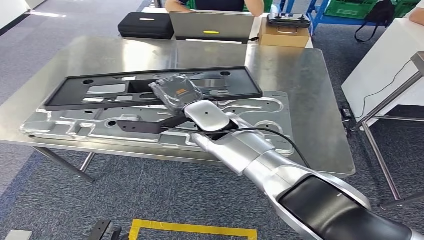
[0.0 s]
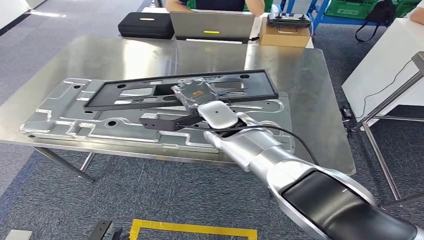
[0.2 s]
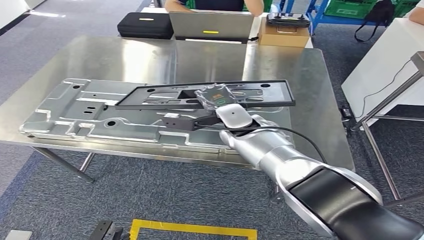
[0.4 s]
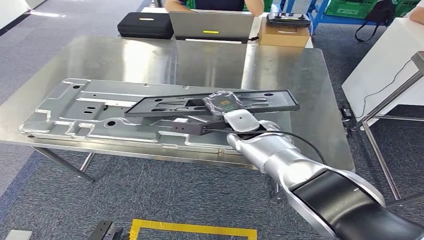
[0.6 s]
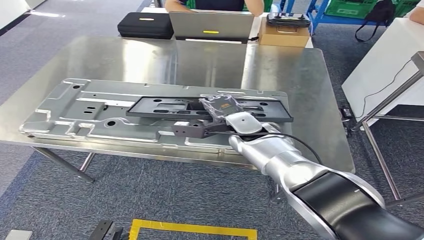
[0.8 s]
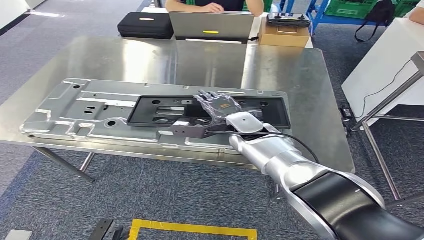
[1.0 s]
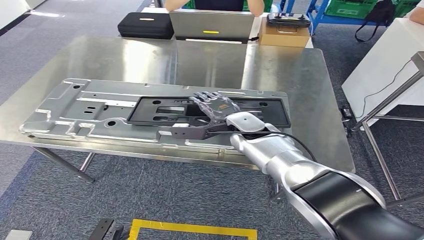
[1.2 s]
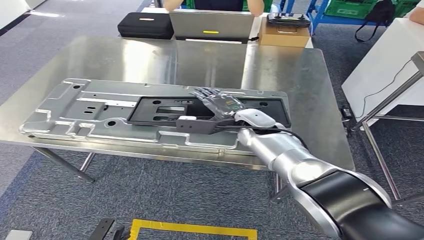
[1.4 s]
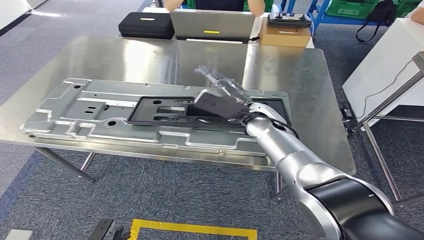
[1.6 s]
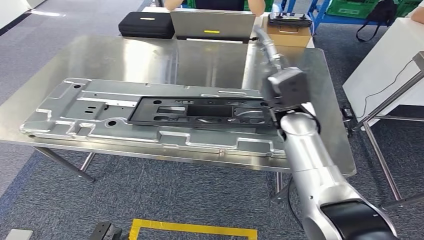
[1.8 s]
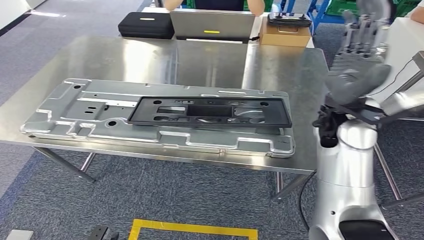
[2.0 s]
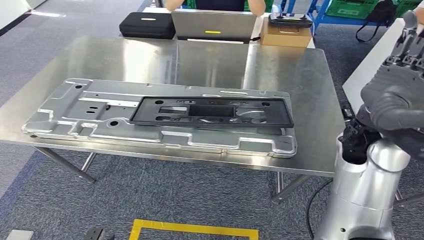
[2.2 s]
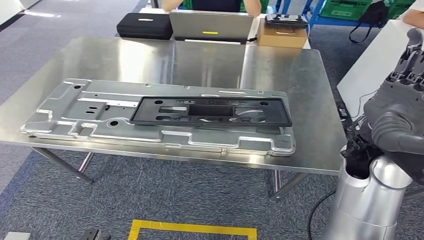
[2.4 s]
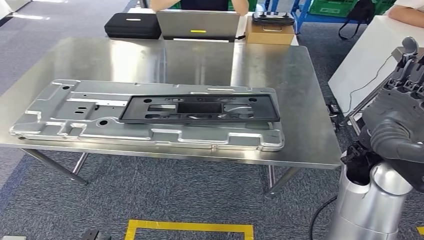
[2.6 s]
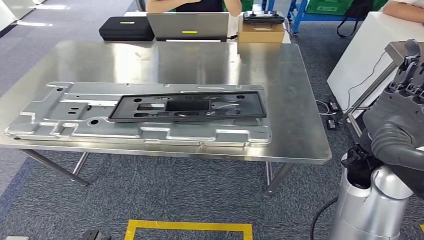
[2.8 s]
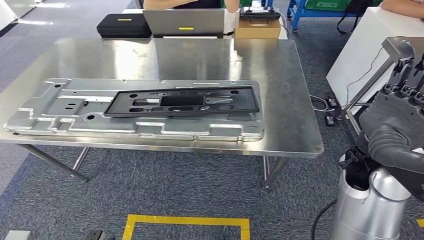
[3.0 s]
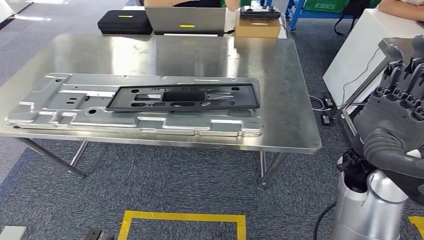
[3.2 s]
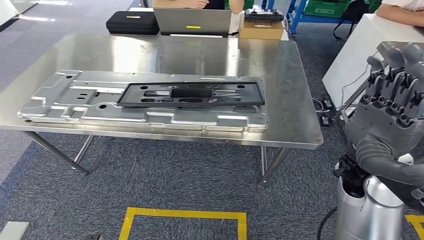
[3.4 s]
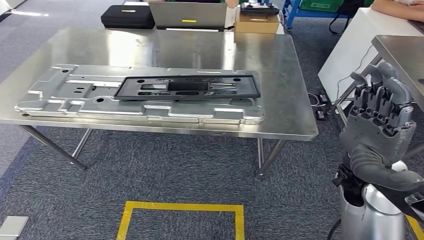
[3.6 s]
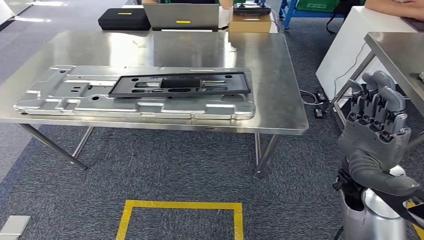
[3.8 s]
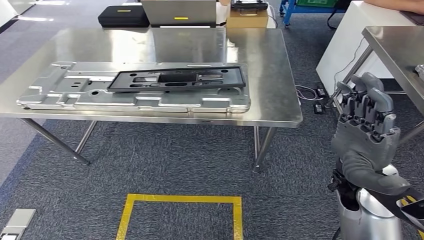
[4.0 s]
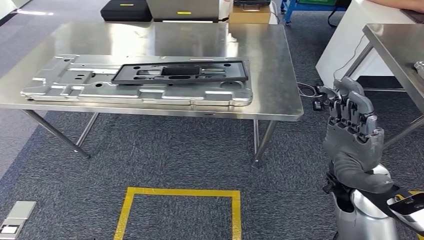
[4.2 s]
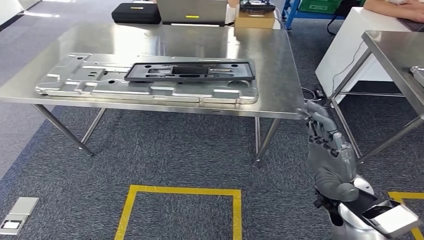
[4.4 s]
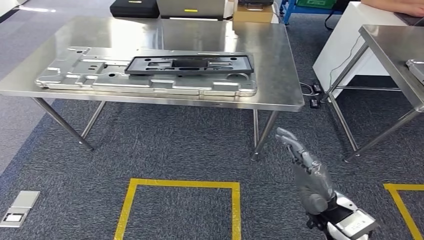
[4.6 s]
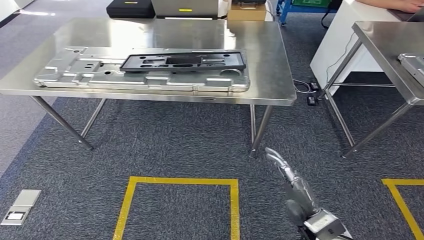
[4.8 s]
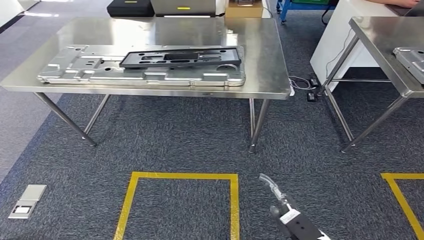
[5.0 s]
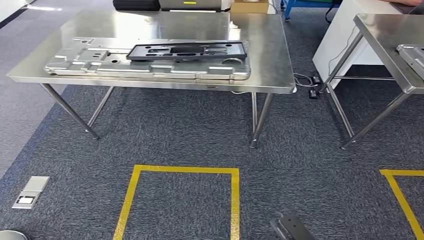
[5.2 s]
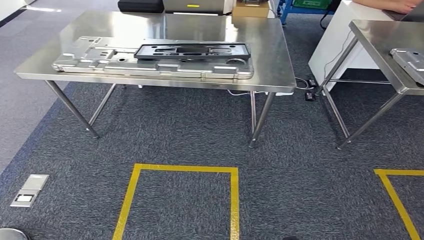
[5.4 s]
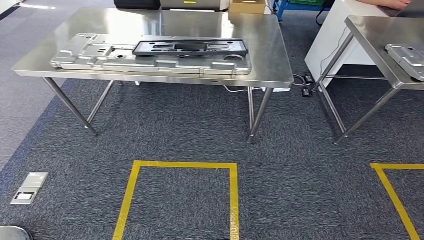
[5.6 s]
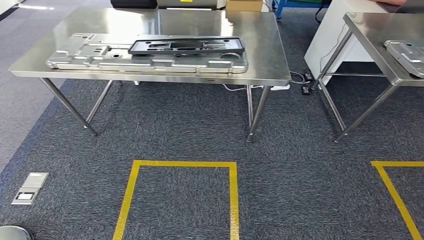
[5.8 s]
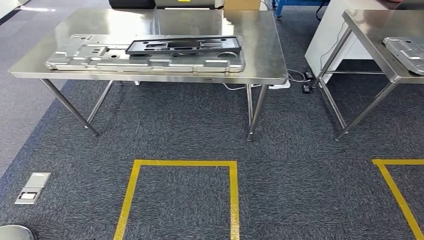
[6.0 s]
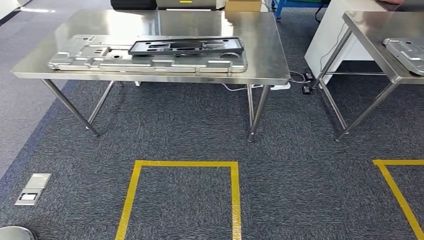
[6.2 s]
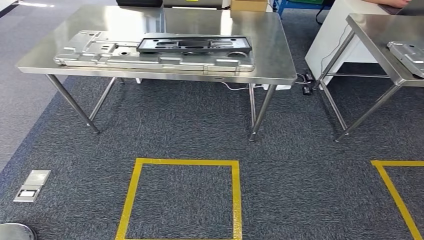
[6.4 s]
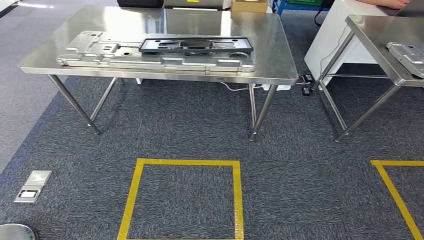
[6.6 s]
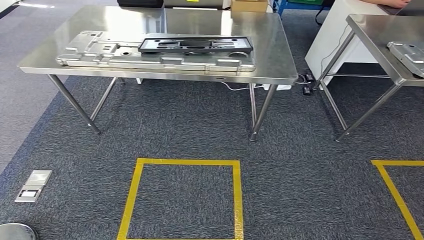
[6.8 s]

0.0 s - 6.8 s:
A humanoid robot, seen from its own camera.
Step, 0.0 s - 1.8 s: Insert the small component into the corresponding slot on the workbench.
Step, 2.0 s - 6.8 s: Move to the initial position of the workbench.
0.0 s - 1.4 s: The right hand is displaced to the right and downward by roughly 15 cm.

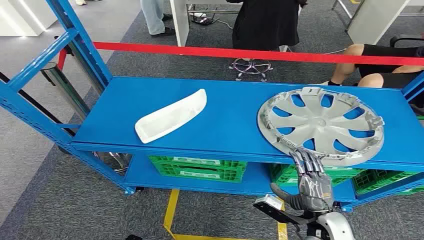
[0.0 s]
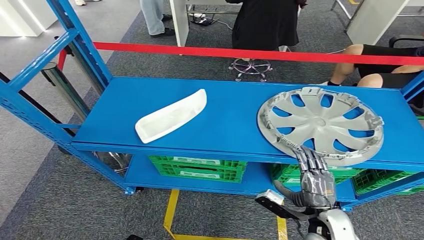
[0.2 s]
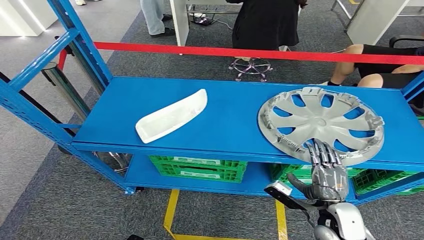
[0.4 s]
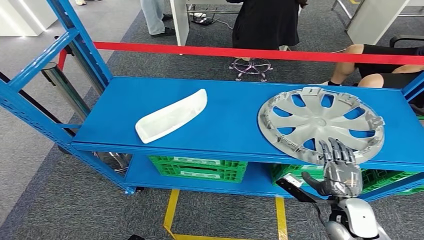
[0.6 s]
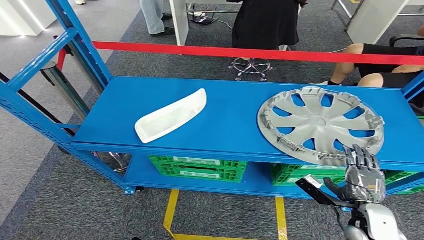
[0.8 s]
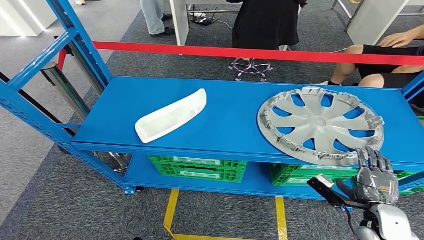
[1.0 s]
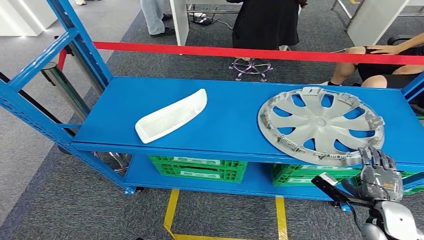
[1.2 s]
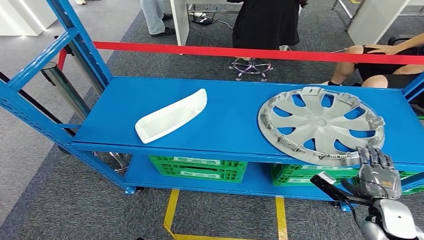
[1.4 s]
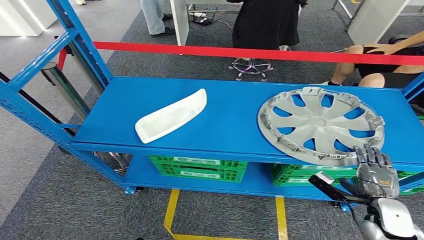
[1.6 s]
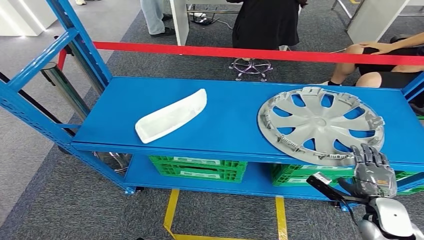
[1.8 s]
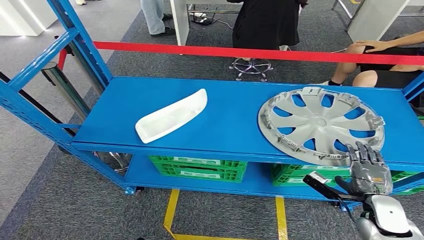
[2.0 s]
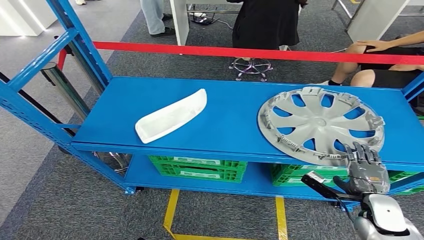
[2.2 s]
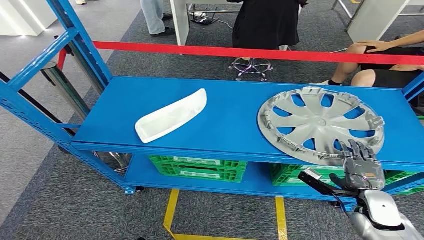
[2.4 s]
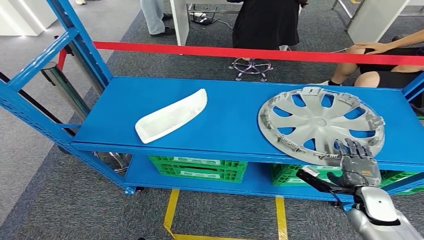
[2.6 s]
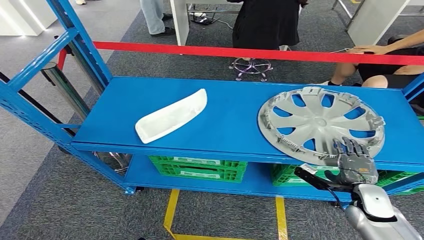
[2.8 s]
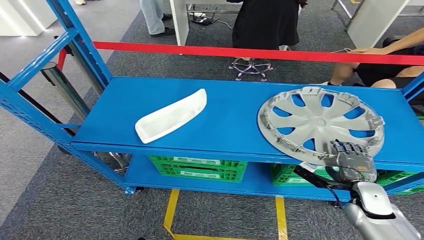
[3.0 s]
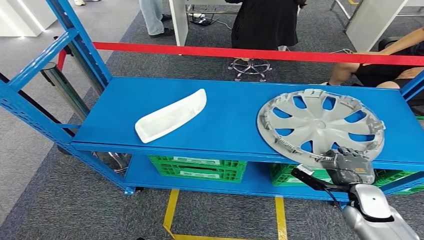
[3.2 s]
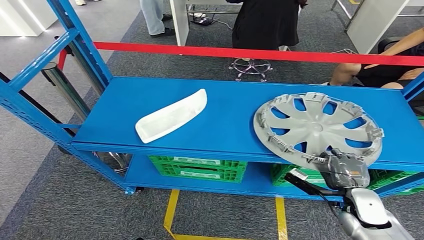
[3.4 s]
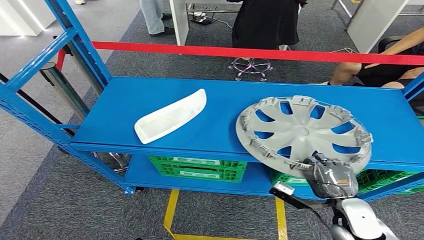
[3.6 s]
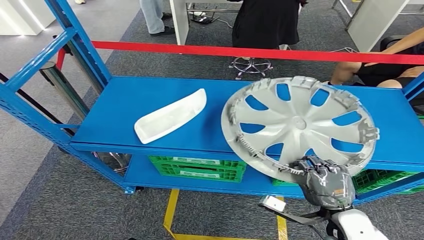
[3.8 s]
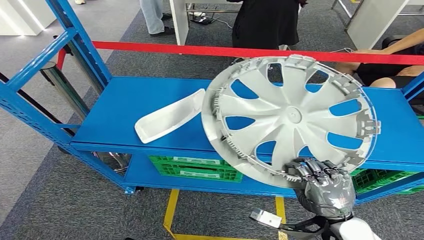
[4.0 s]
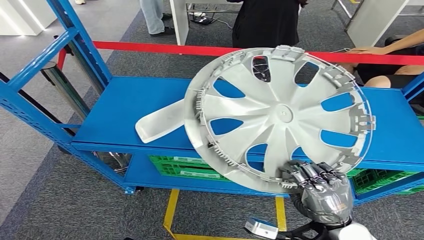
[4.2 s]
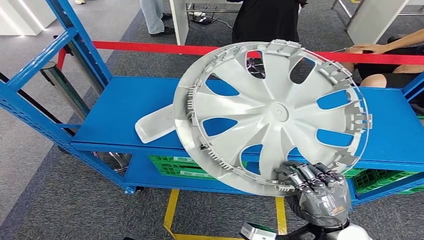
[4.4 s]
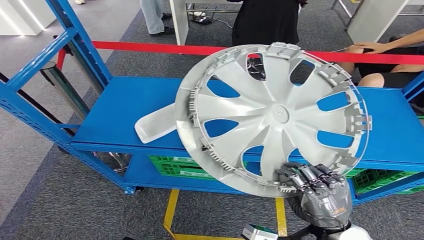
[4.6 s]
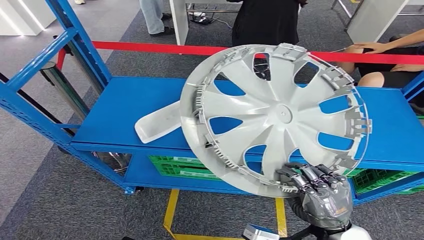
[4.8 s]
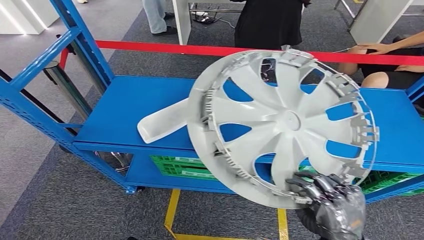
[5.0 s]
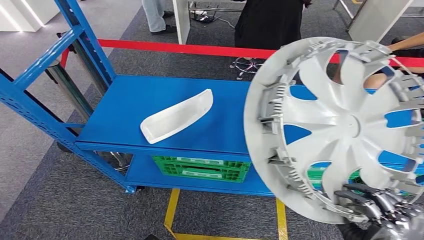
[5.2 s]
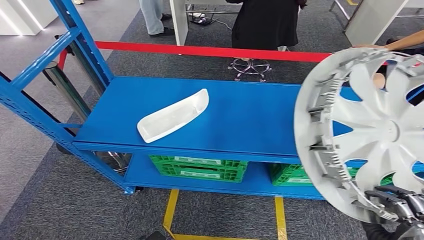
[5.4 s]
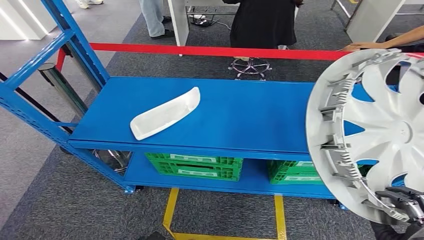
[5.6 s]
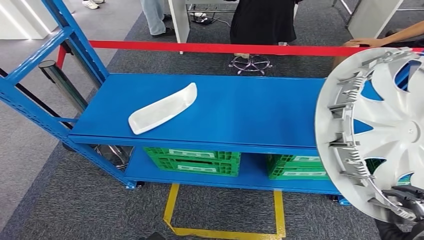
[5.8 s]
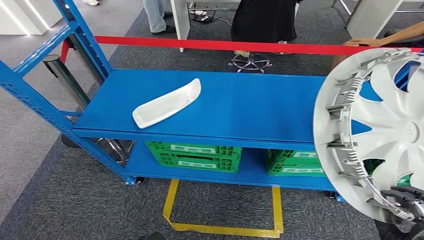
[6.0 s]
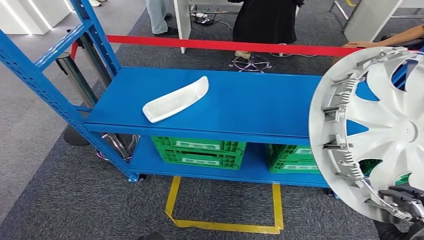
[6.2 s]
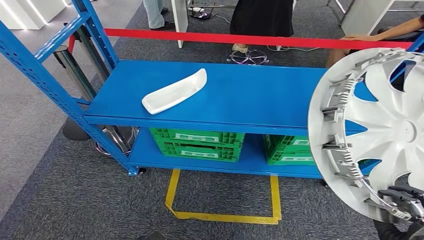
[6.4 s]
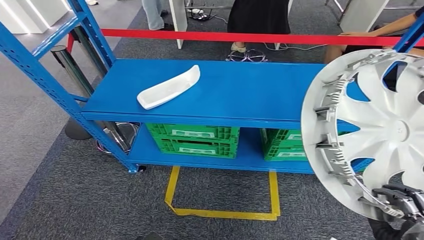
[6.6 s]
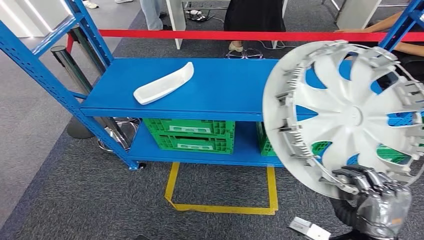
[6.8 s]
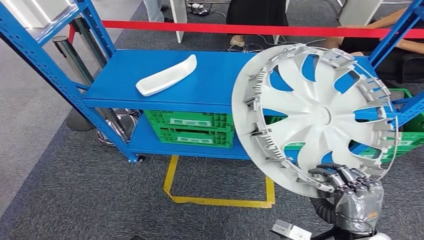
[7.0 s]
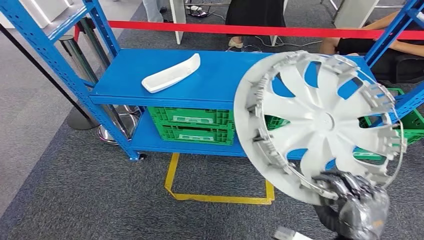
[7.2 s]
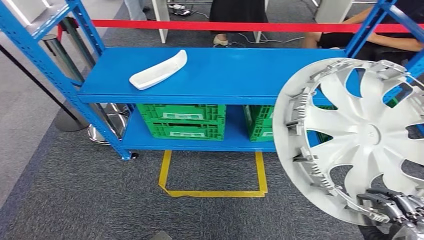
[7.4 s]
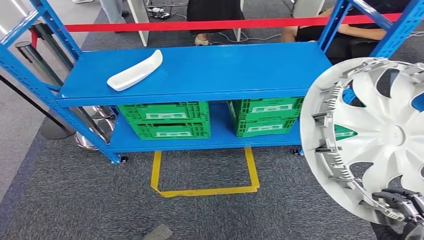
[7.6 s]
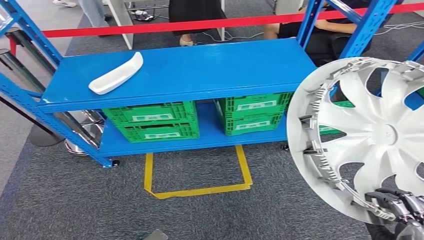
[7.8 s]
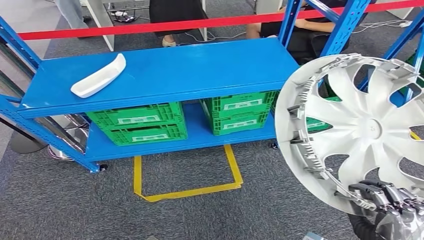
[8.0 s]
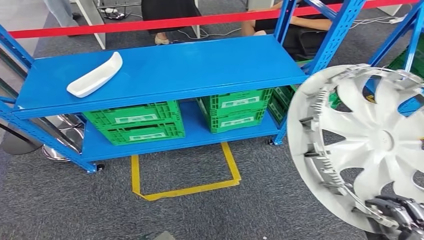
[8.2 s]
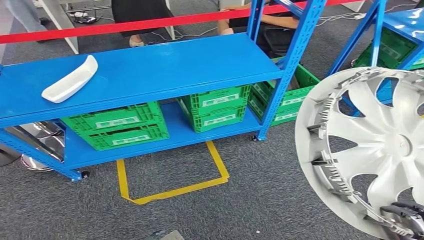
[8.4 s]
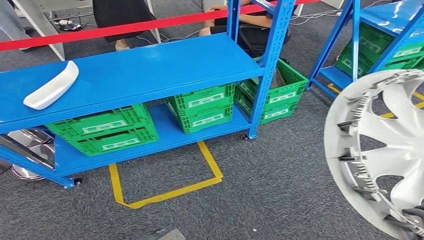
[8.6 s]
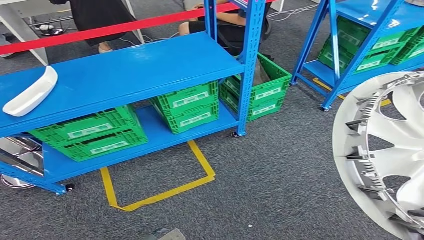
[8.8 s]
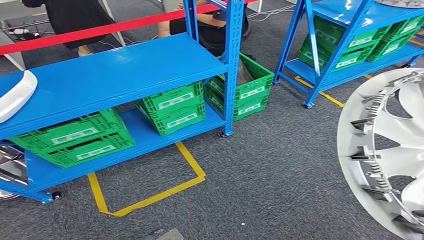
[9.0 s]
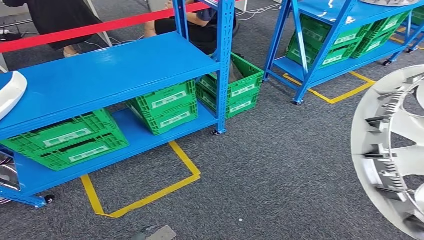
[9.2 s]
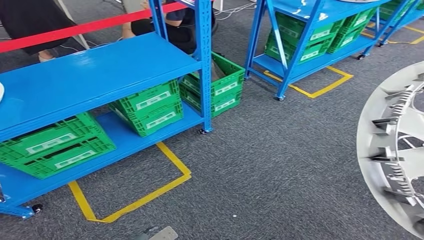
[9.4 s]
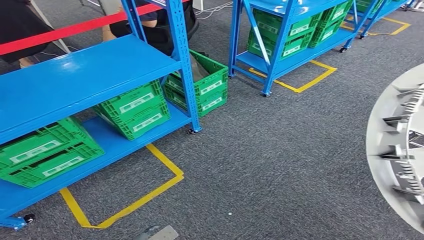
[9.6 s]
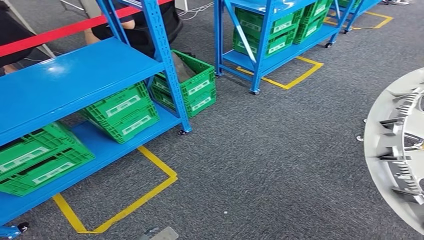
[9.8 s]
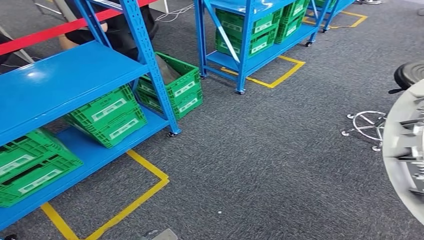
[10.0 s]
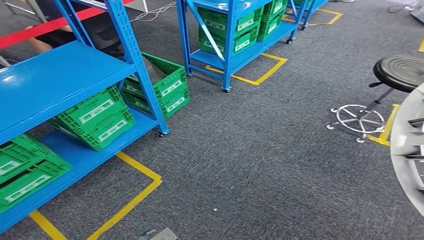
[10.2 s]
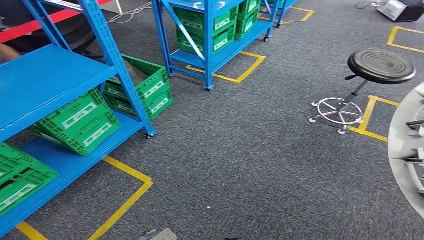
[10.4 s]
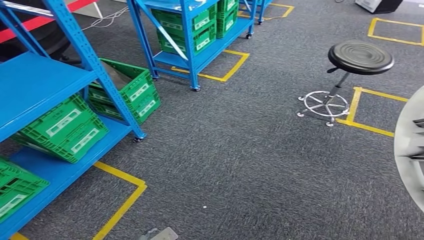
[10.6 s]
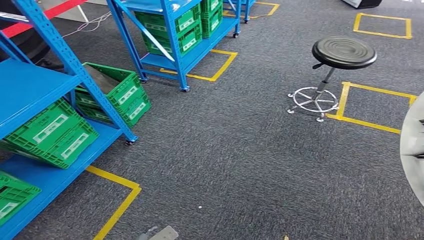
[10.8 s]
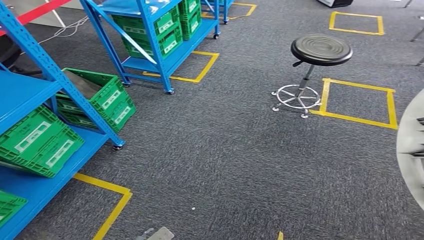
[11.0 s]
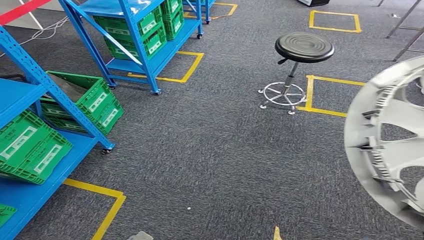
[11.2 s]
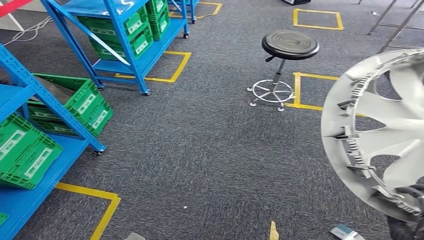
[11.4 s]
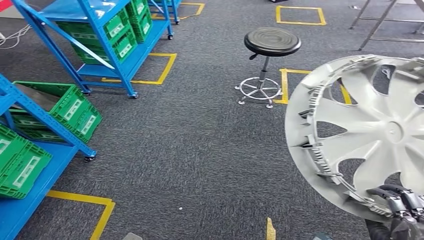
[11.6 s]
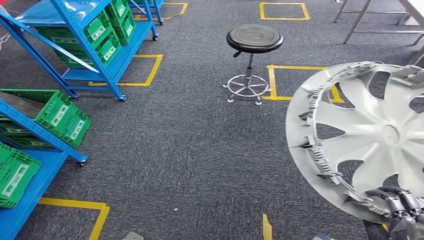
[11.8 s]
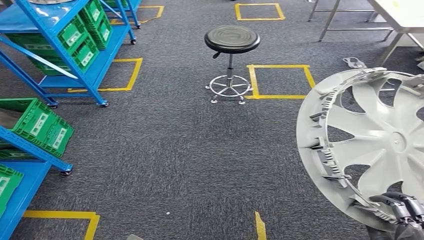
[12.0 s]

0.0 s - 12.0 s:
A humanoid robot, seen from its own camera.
Step, 0.0 s - 5.2 s: Pick up the small component from the shelf.
1.6 s - 3.0 s: The right hand moves approximately 5 cm.
